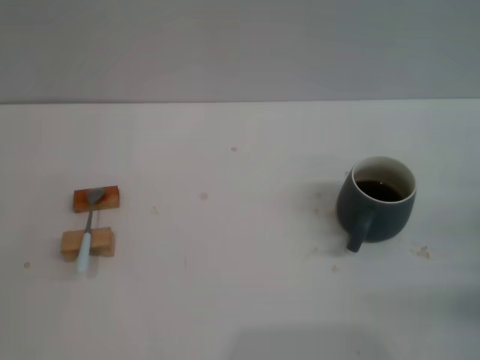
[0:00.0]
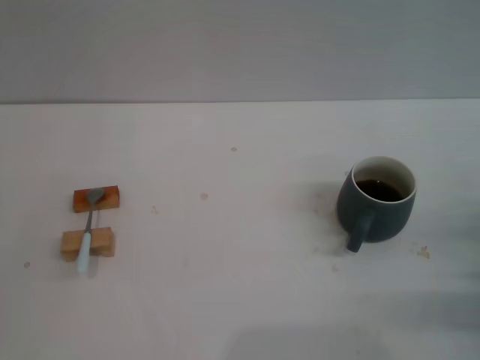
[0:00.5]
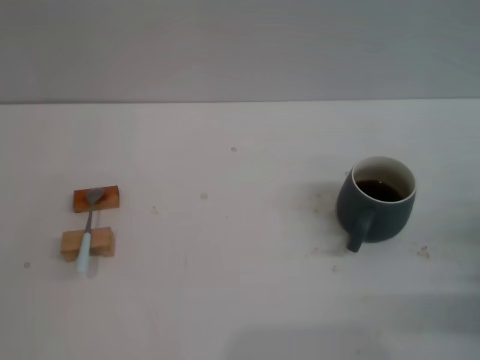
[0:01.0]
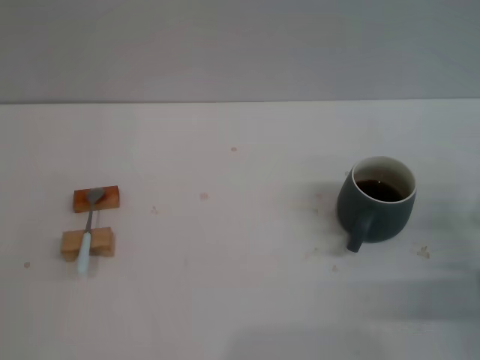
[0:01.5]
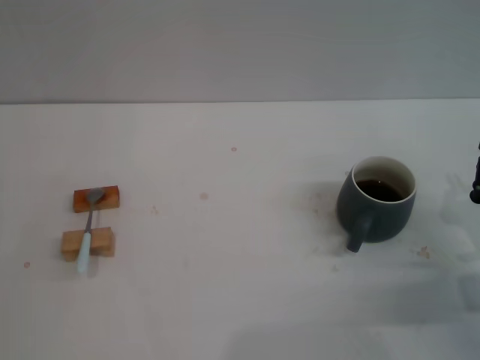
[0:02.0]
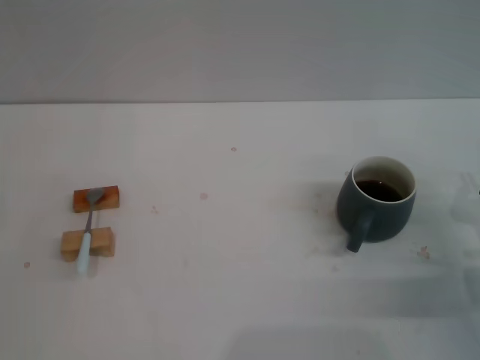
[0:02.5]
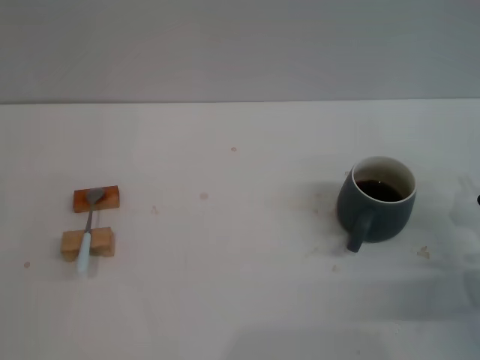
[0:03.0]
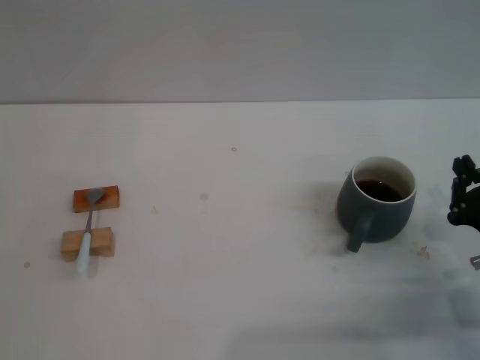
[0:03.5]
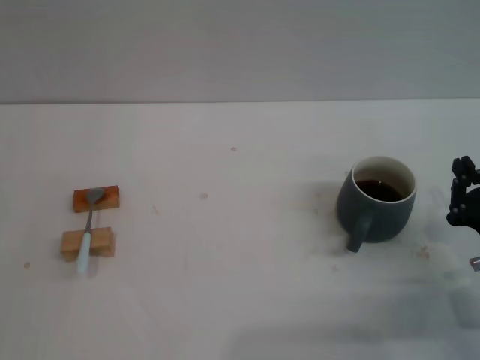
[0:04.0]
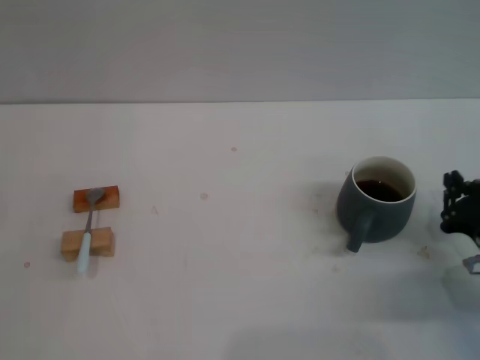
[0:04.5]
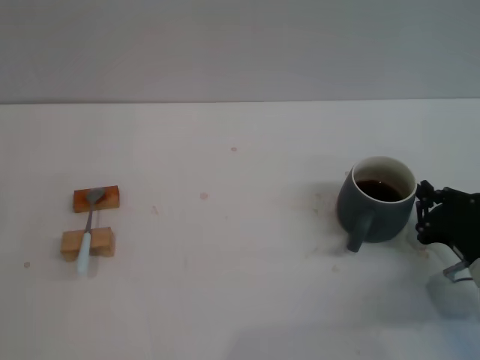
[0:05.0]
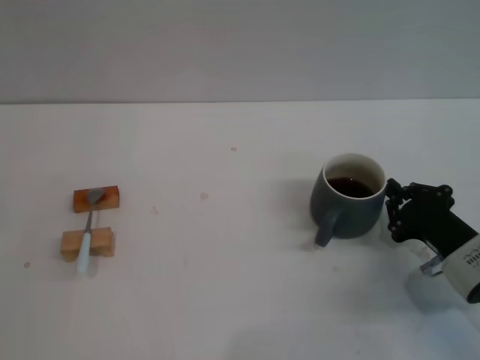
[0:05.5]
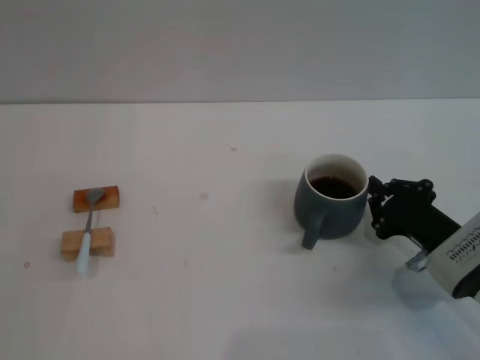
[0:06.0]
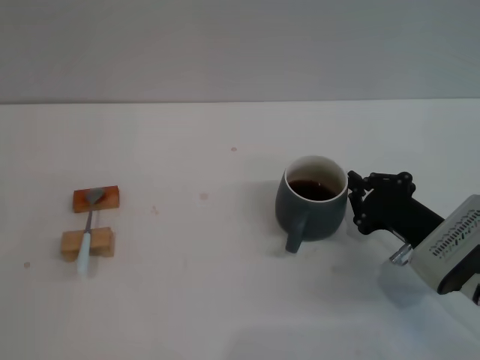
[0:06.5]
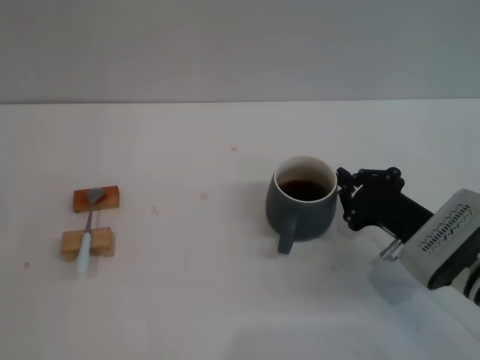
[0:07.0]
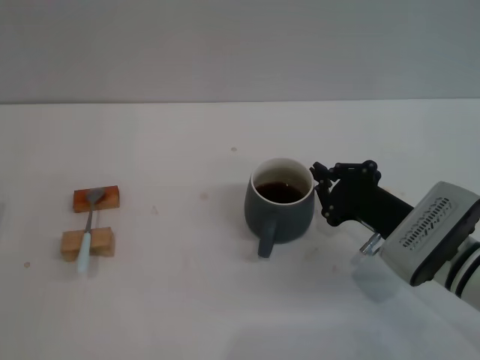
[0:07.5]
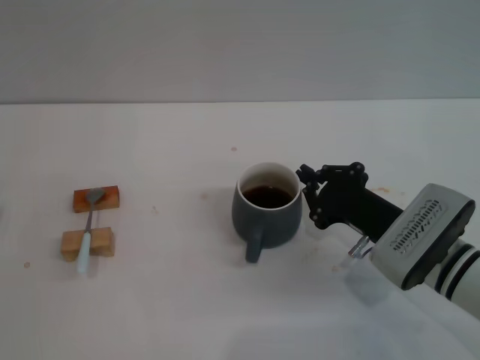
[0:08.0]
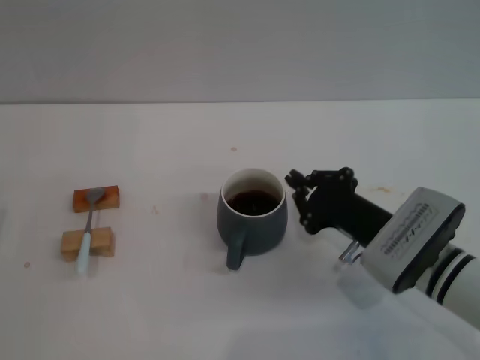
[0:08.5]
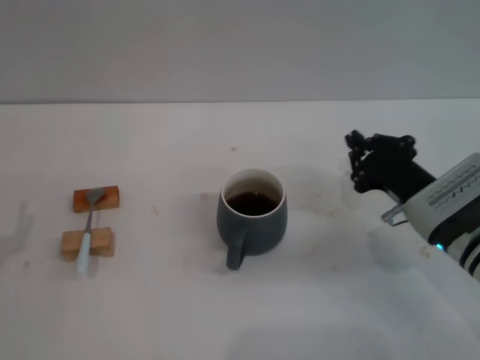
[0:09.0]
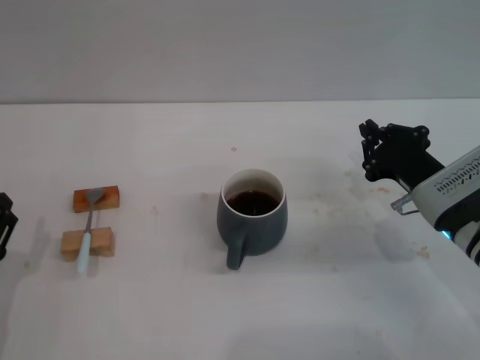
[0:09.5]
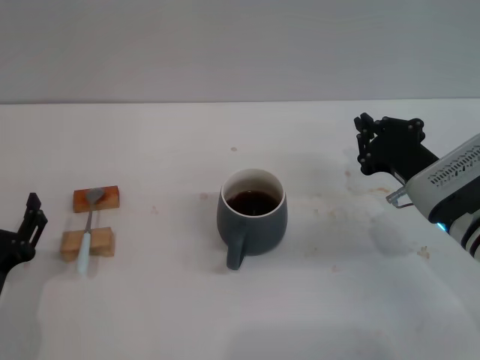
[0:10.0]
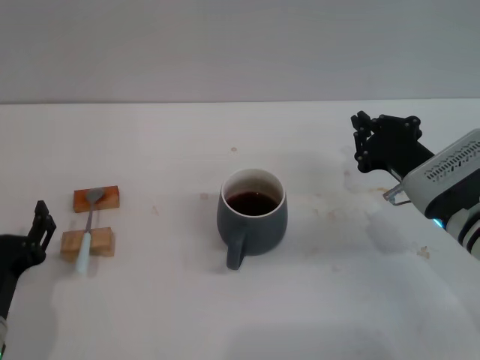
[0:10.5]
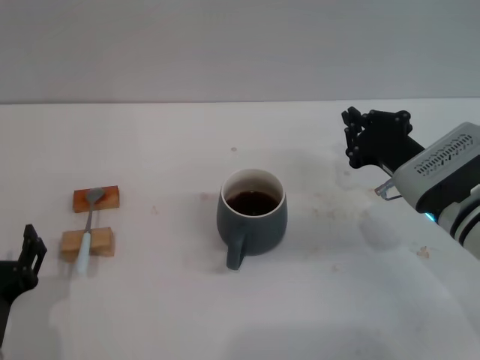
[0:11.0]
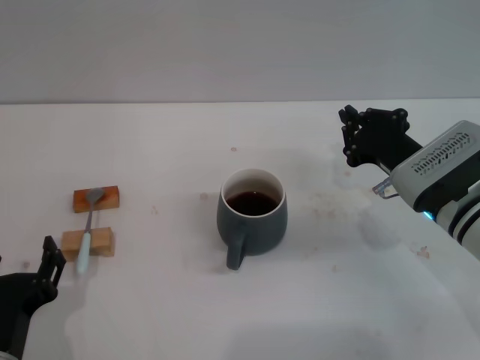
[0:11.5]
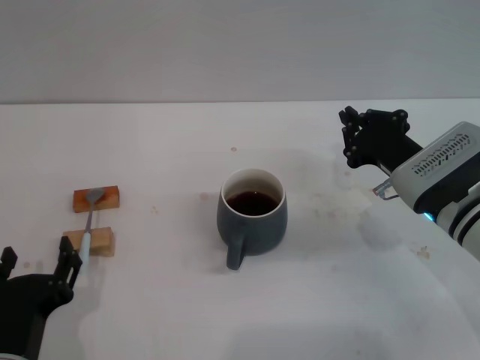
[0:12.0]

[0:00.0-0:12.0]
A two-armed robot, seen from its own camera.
Task of the whole recording: Move the grey cup to the center, lift the blue spoon, stir it three times in the cup, and put the spoon into the cup.
Step, 0:00.0 to 0:08.5: Move the cup with coffee to the center of view with the right gripper.
0:00.0 to 0:02.0: The right gripper ends up about 5 cm from where it was.
0:02.0 to 0:04.0: The grippers stay close to where they were, moving slightly.
0:04.0 to 0:06.0: The right gripper ends up roughly 5 cm from where it was.
0:06.0 to 0:08.0: The right gripper is displaced to the left by about 5 cm.
0:08.0 to 0:10.0: The left gripper heads to the right, covering roughly 5 cm, while the right gripper ends up about 5 cm from where it was.
0:10.0 to 0:12.0: The left gripper goes about 5 cm to the right.

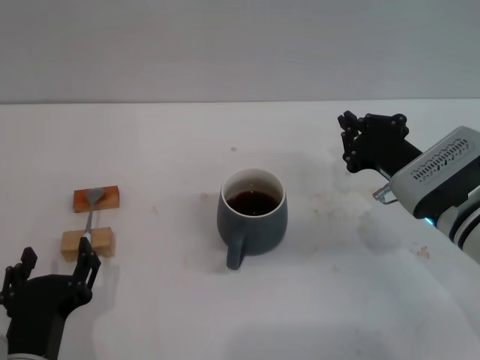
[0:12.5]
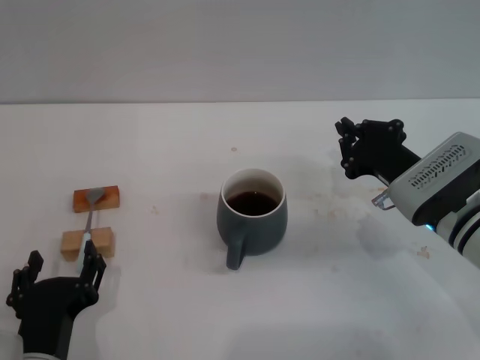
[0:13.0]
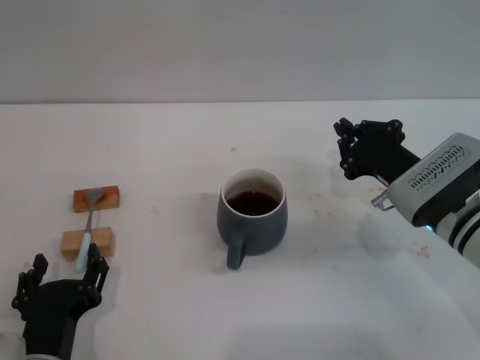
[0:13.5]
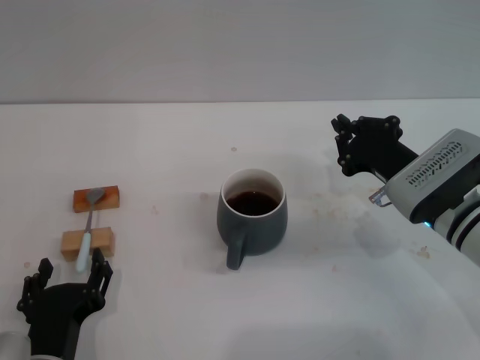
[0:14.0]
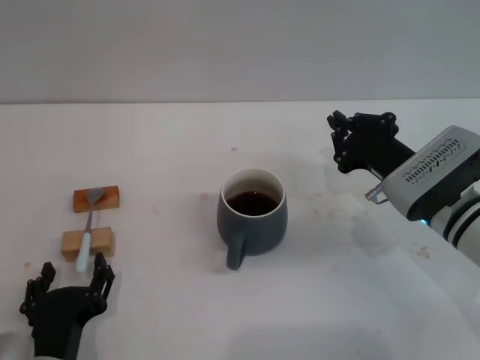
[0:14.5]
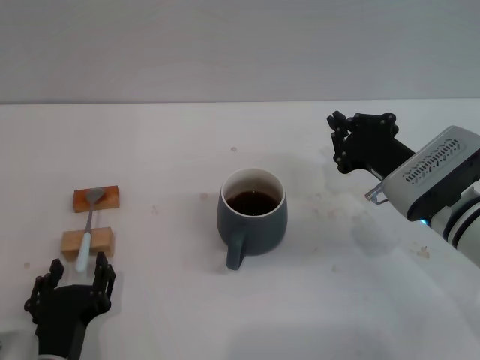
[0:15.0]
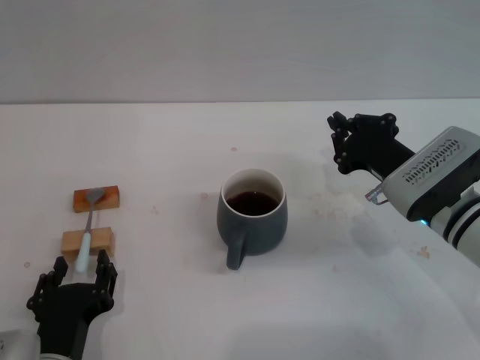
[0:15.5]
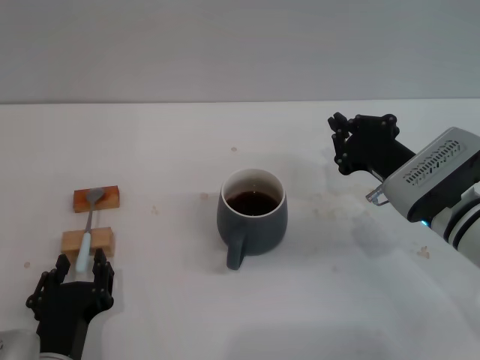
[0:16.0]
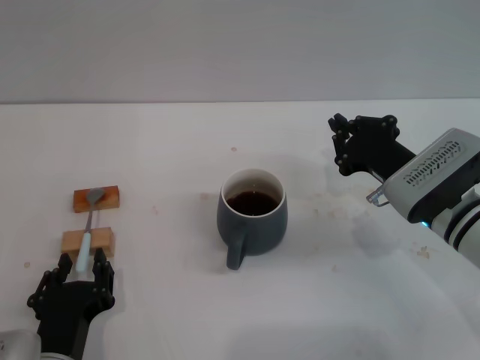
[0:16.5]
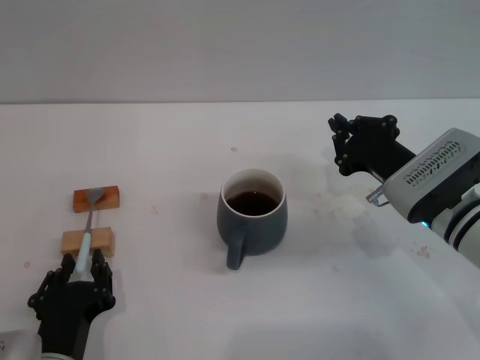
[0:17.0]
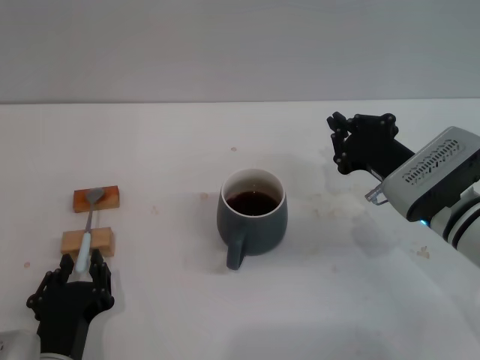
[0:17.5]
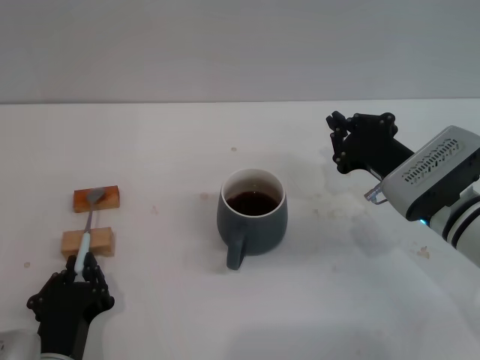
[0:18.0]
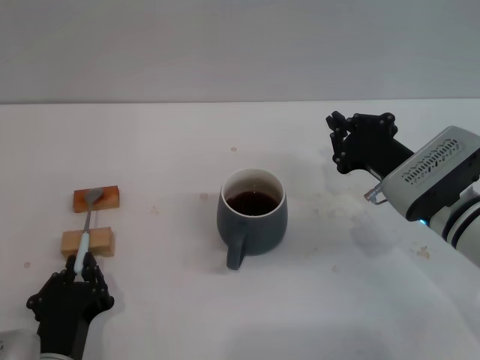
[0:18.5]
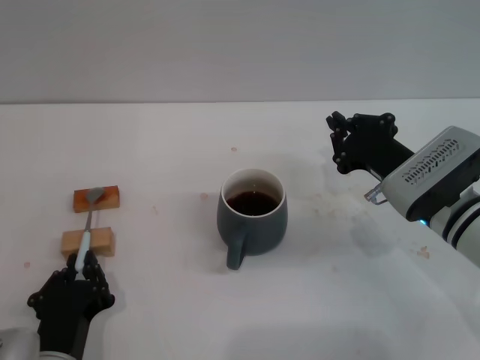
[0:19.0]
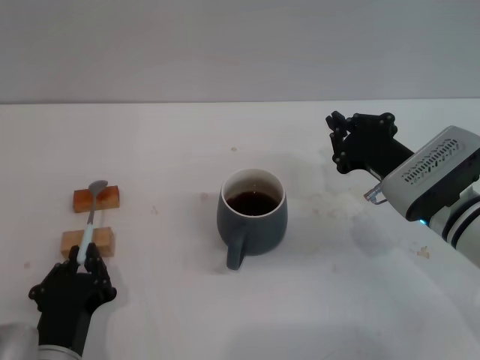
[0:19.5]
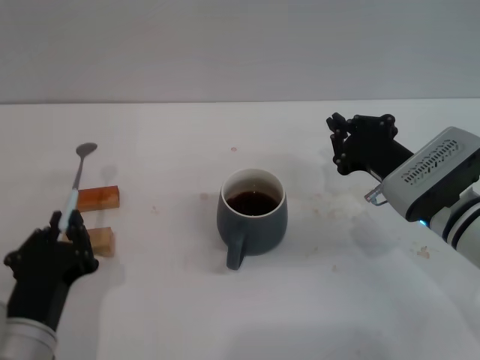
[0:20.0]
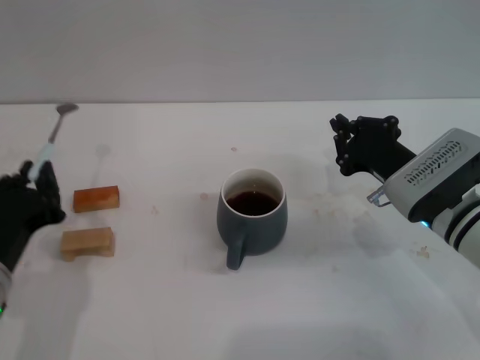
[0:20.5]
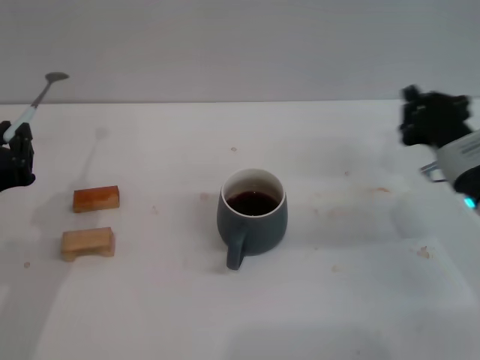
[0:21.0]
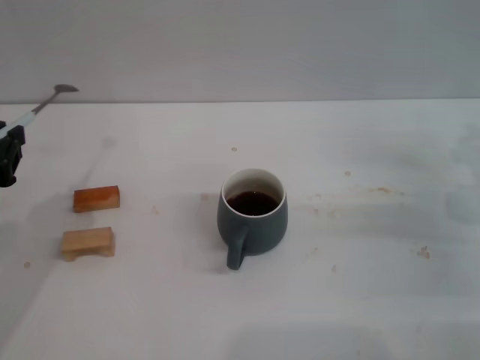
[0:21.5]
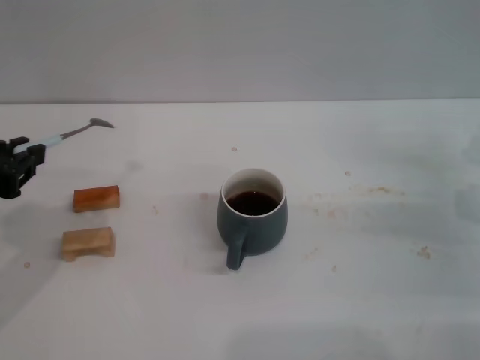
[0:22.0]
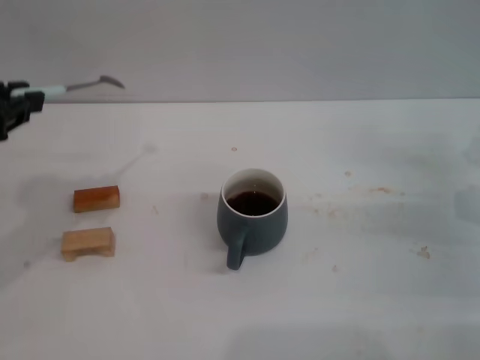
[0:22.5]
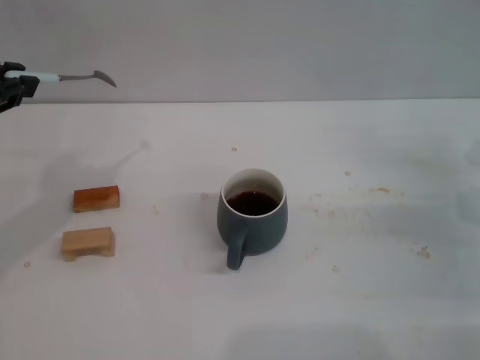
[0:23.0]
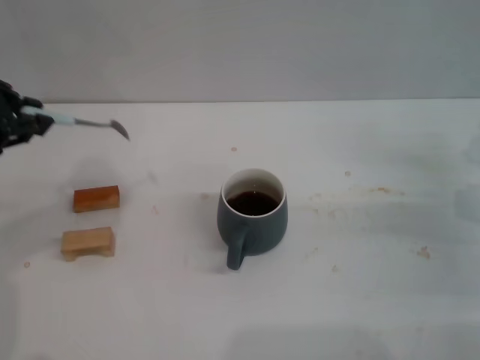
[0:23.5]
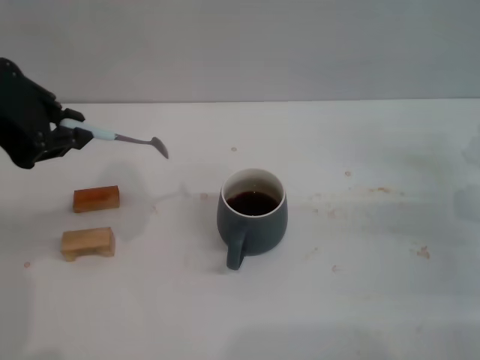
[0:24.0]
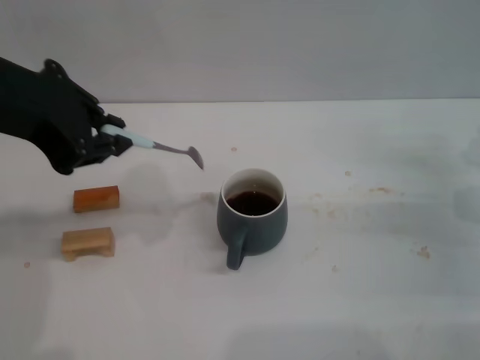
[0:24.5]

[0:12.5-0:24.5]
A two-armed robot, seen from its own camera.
Task of the whole recording: Move the grey cup to the center, lift the blue spoon, stir it three times in the cup, and put the spoon into the cup.
Step, 0:12.5 to 0:21.5: Pick up the spoon with the left gripper.
0:12.5 to 0:14.5: The grippers move only a little.
0:14.5 to 0:16.5: The two grippers keep their place.
0:16.5 to 0:18.5: The left gripper closes up.
0:18.5 to 0:20.5: The left gripper travels upward by about 10 cm.
0:20.5 to 0:22.5: The left gripper is displaced upward by some 15 cm, while the right gripper heads to the right, covering approximately 10 cm.
0:22.5 to 0:24.5: The left gripper moves to the right and upward, roughly 10 cm.

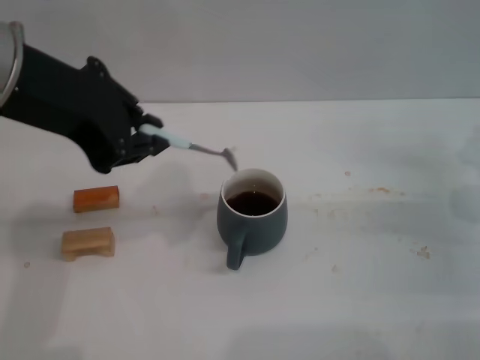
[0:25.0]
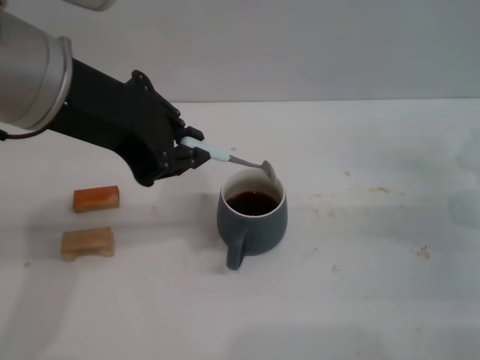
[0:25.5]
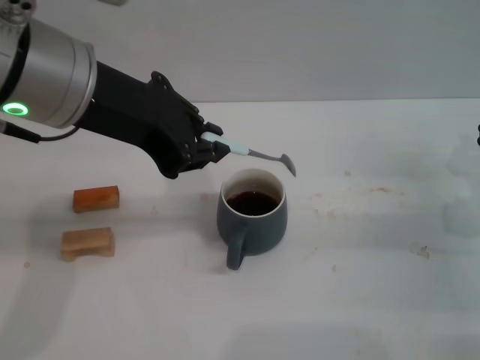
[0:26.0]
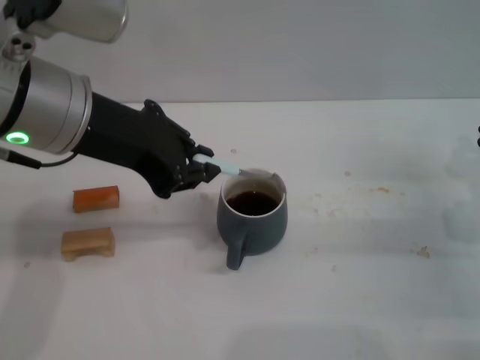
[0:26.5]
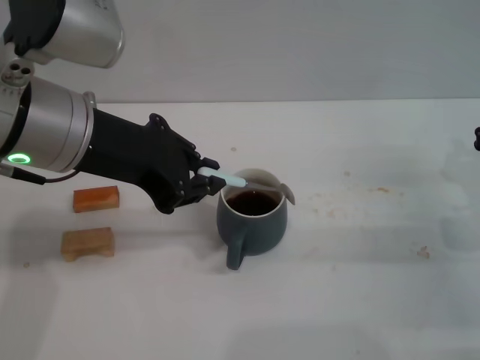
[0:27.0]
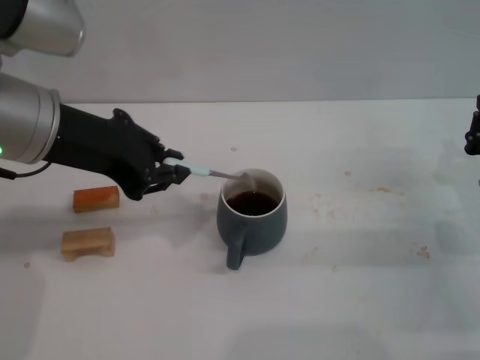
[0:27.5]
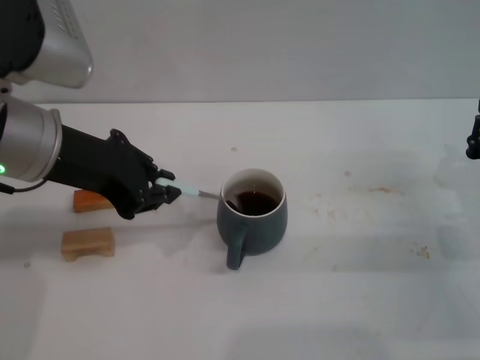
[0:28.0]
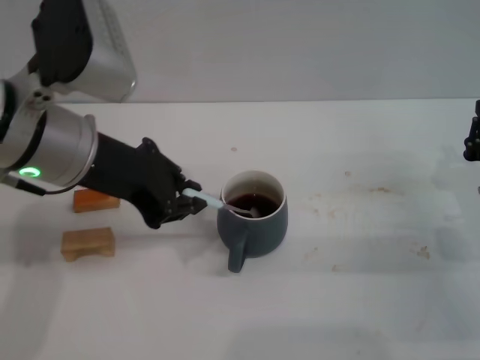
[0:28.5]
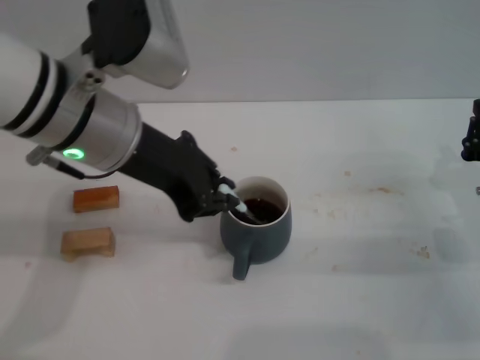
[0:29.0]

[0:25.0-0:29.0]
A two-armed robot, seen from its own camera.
Task of the whole recording: Move the grey cup to the center, lift the blue spoon, stir it three times in the cup, and put the spoon into the cup.
0:25.0 to 0:27.0: The left gripper goes roughly 5 cm downward.
0:27.0 to 0:29.0: There are only small adjustments of the grippers.
